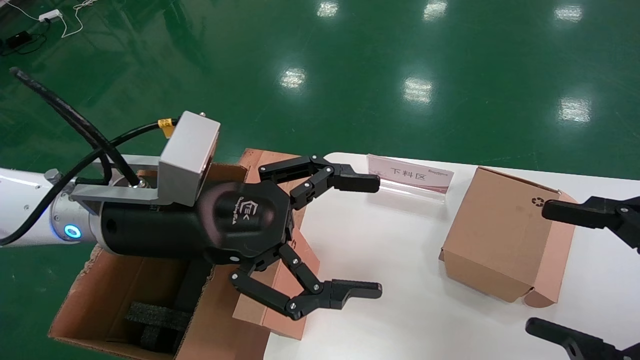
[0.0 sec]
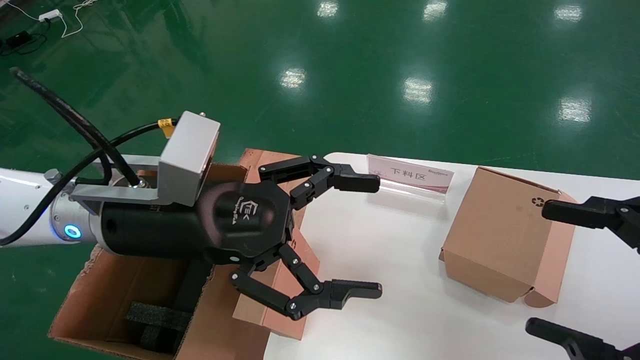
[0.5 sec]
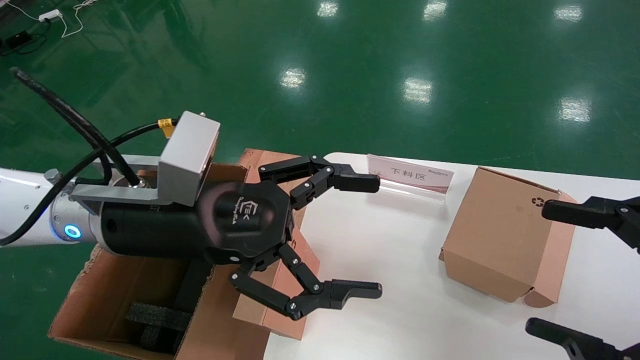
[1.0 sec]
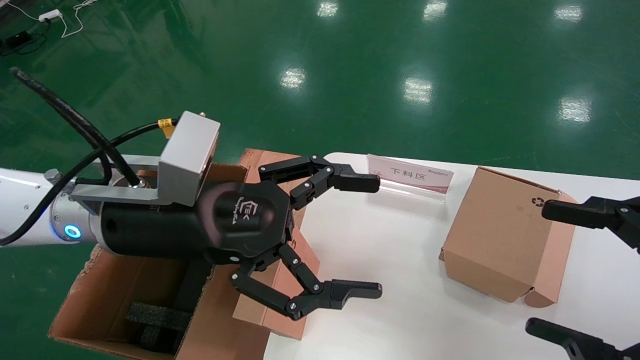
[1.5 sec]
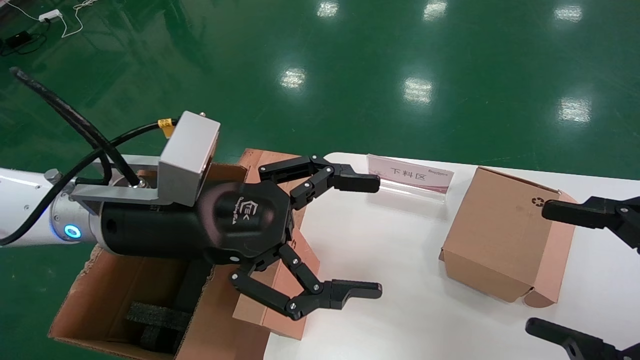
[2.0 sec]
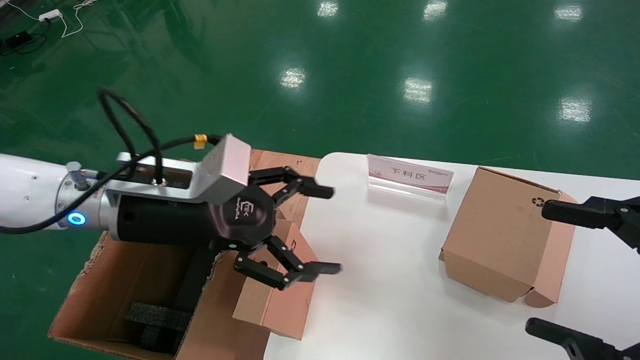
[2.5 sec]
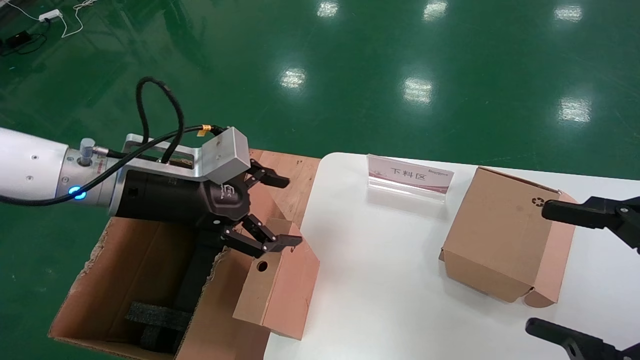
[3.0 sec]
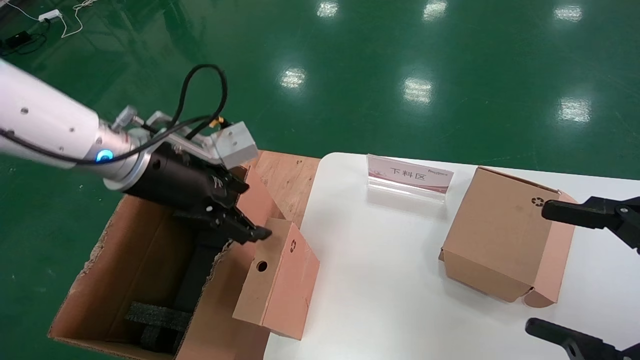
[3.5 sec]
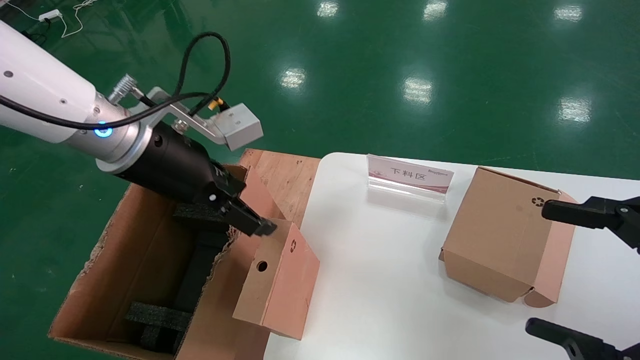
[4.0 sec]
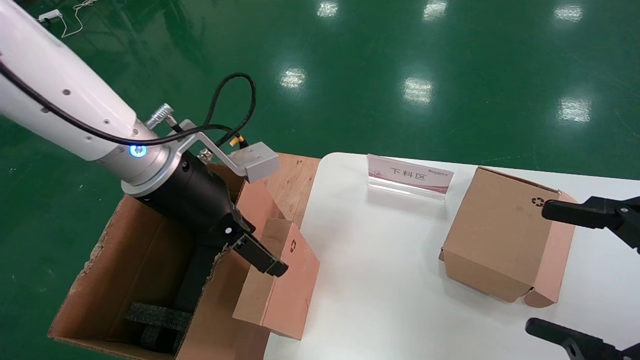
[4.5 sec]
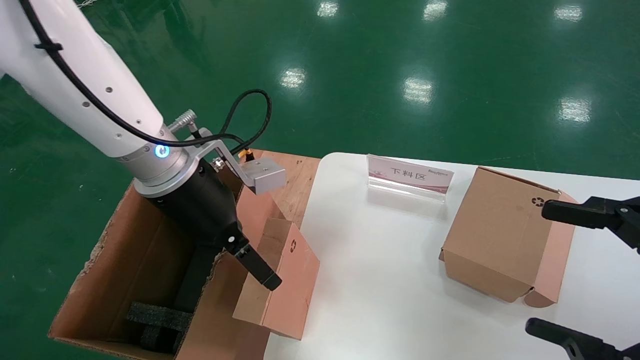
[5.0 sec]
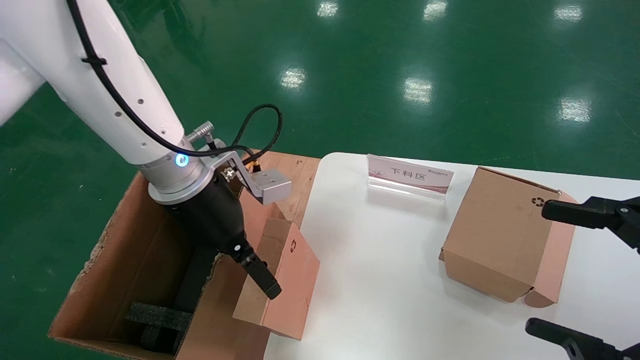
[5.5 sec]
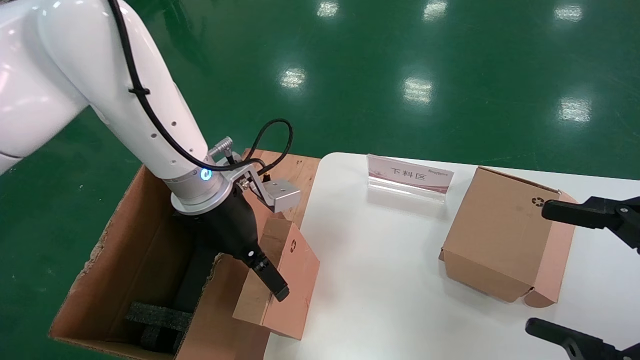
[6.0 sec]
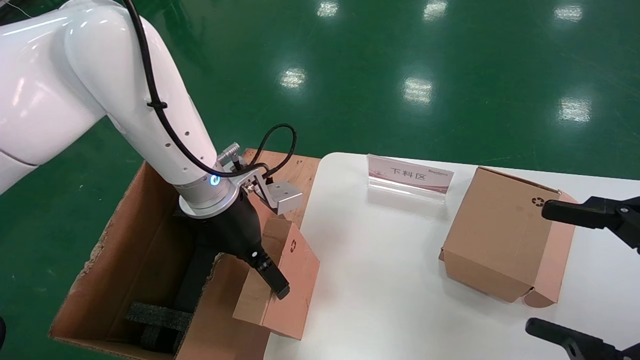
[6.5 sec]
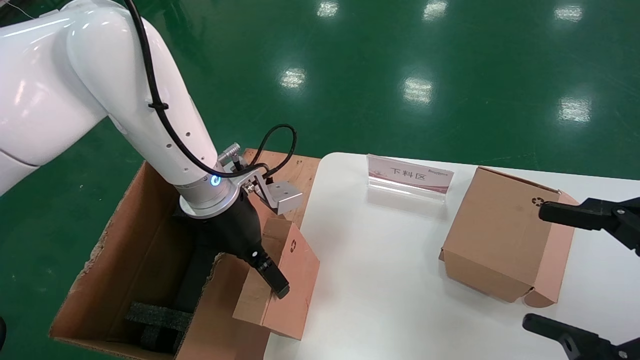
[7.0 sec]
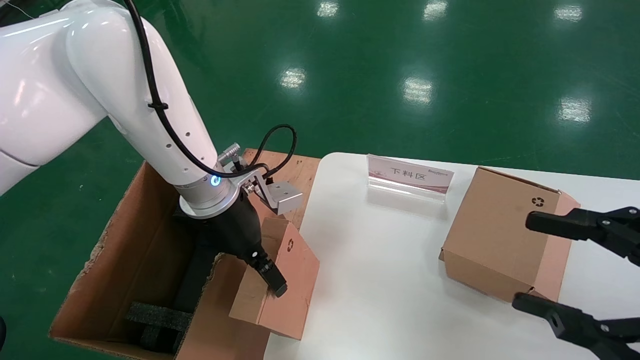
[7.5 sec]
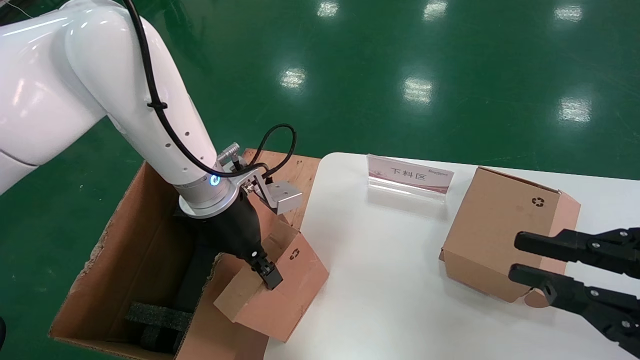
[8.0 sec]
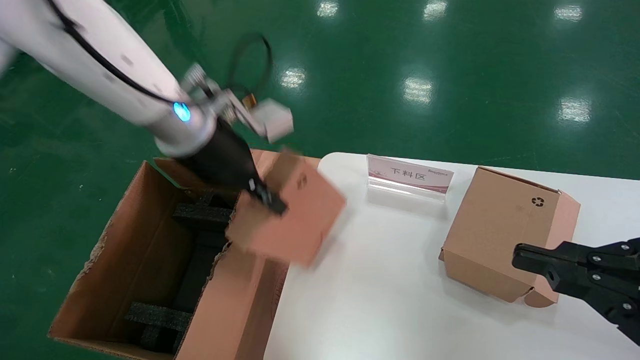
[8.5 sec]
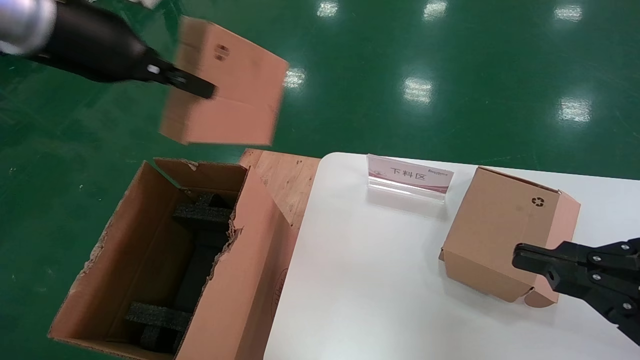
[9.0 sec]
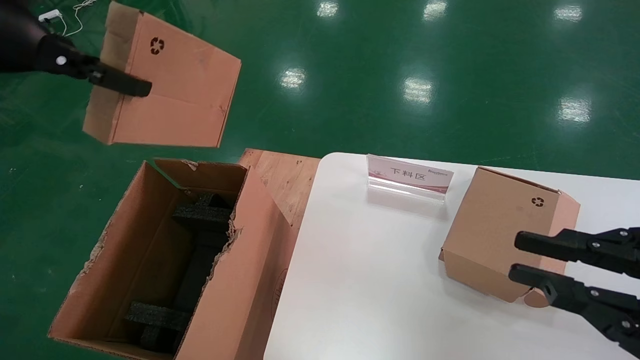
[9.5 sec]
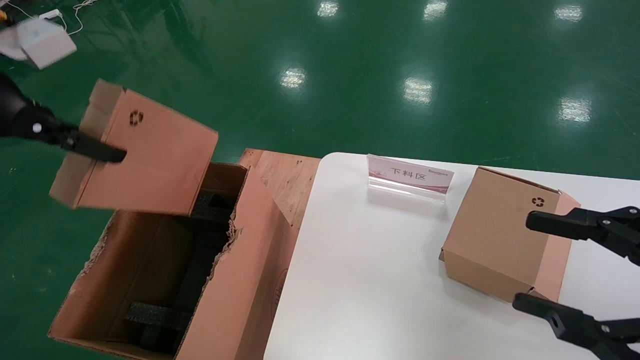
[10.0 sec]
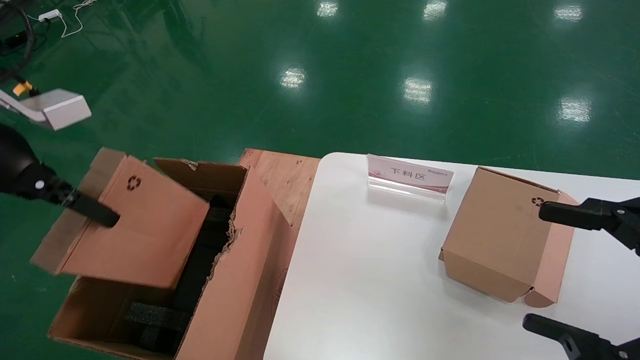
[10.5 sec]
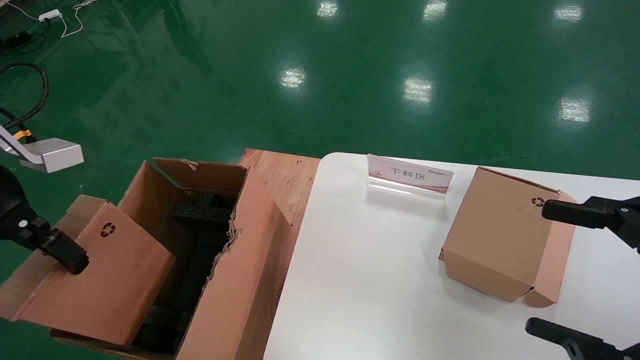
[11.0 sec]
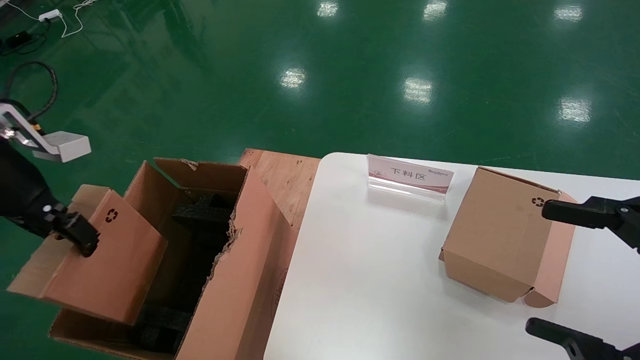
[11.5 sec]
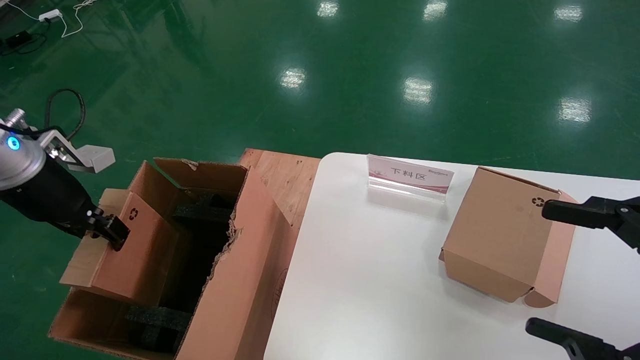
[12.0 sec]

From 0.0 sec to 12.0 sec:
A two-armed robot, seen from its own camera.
Task of the whole recording: put the box on the table into the big box.
Step, from 0.0 sec to 7.5 sec: Grasp the paper box.
From 0.0 sec to 2.0 sec: The two grippers keep their place.
From 2.0 sec to 4.0 sec: The left gripper shifts some 5 cm upward.
From 4.0 sec to 6.0 sec: The left gripper travels downward by about 5 cm.
From 6.0 sec to 8.0 sec: The right gripper closes, while the left gripper closes.
From 8.0 sec to 10.0 sec: The right gripper closes, then reopens. The left gripper is displaced to the left, upward and backward by some 30 cm.
From 10.0 sec to 12.0 sec: The left gripper is displaced downward and forward by about 15 cm, while the right gripper opens its fingers.

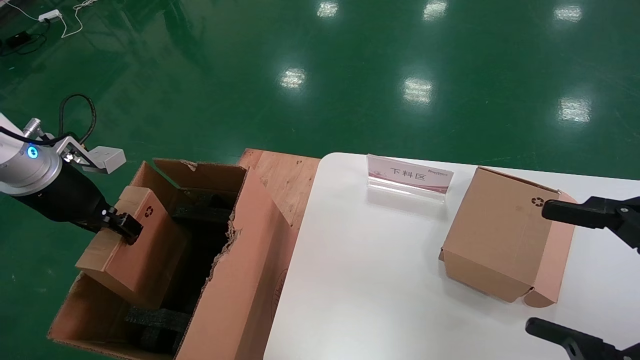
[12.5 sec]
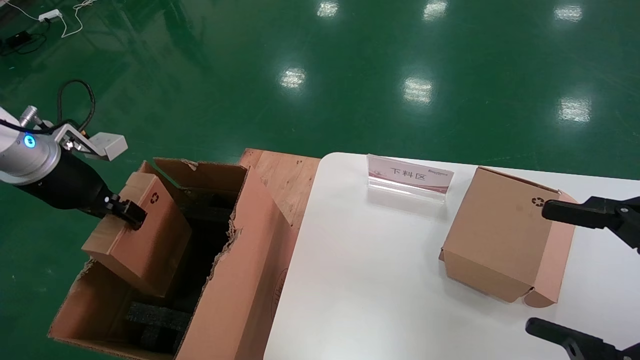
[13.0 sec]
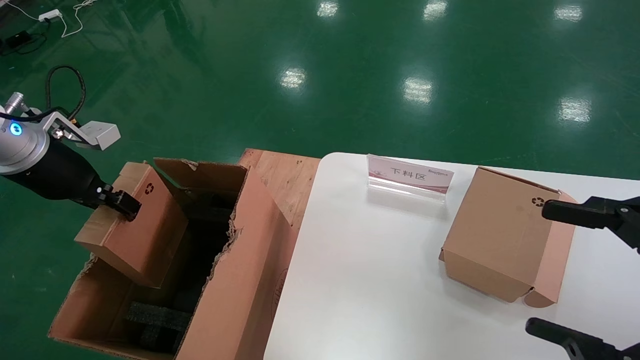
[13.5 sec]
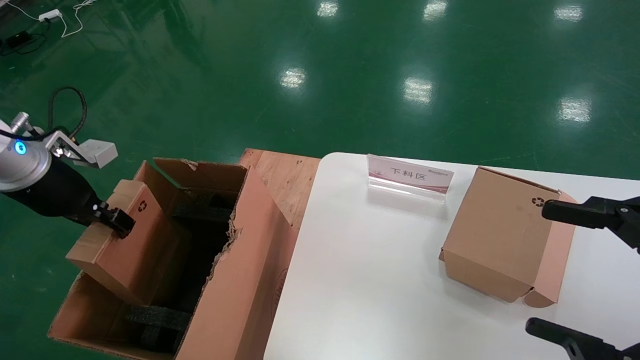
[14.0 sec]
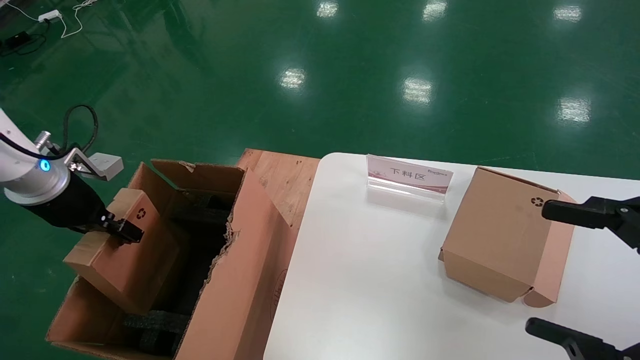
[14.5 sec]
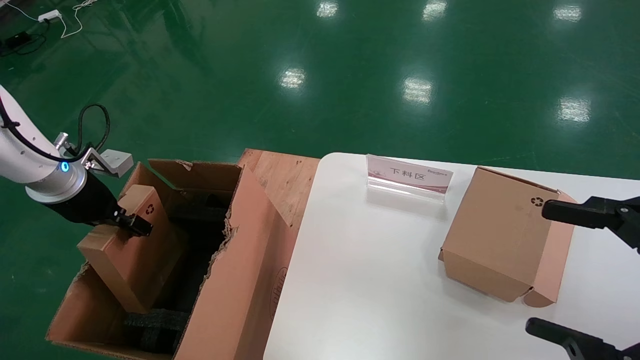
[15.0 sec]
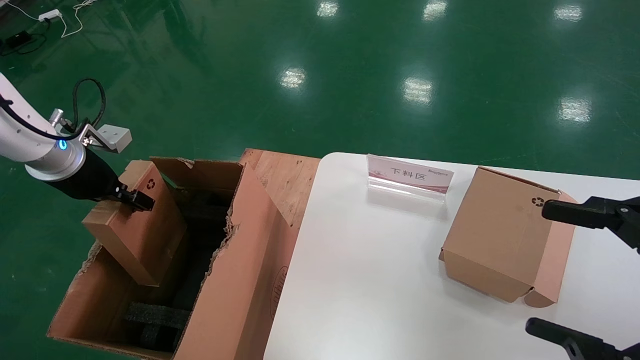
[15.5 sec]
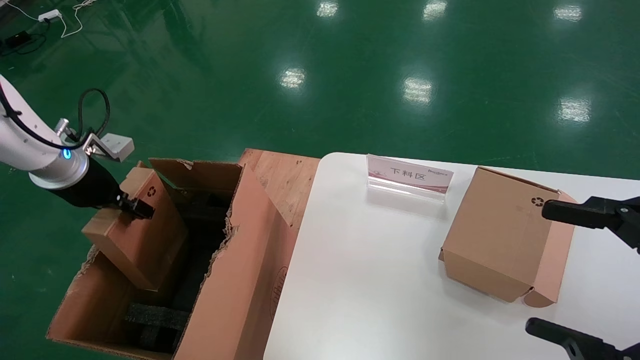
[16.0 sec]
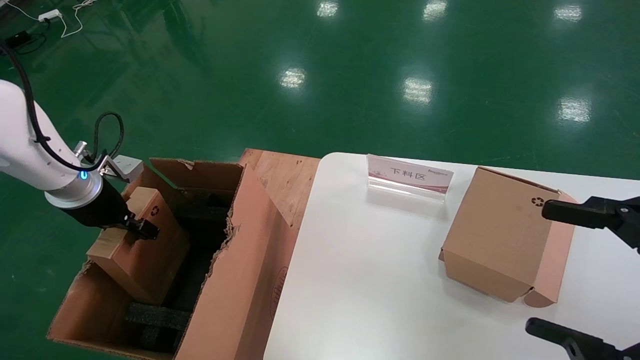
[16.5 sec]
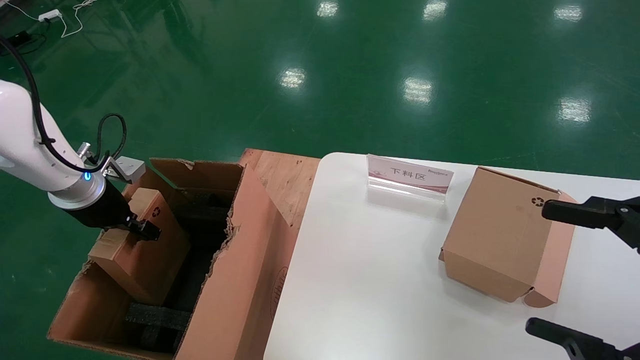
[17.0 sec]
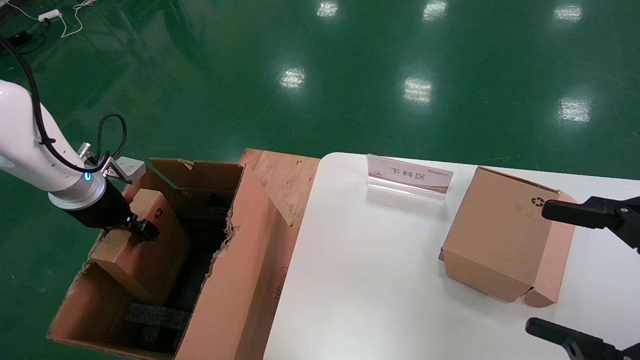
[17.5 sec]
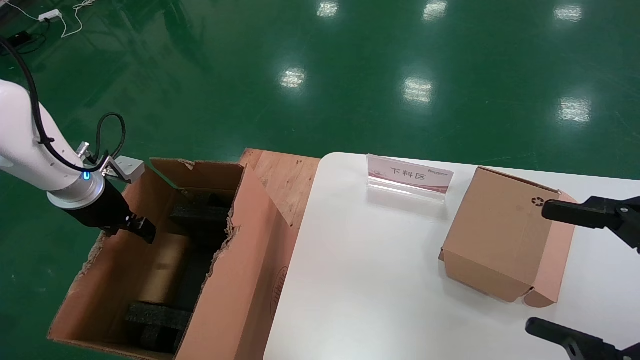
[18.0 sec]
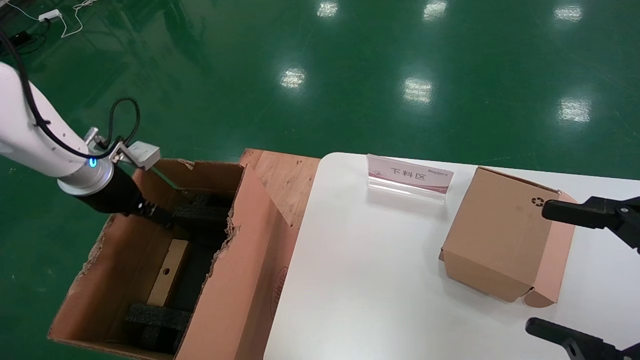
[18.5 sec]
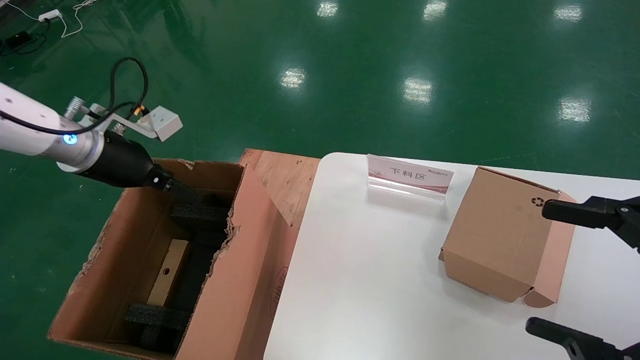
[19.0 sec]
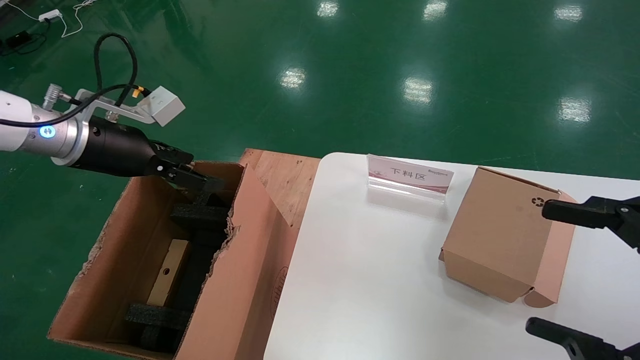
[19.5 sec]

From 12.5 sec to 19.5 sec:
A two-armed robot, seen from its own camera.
Task of the whole recording: put the box on the table into the big box.
Step, from 12.5 sec to 17.5 sec: Place the paper box in the another big box.
From 12.5 sec to 16.0 sec: The grippers move only a little.
From 16.0 sec to 17.5 sec: There are only small adjustments of the grippers.
From 17.5 sec to 19.5 sec: The left gripper is displaced upward and to the right by roughly 10 cm, and opens its fingers.
